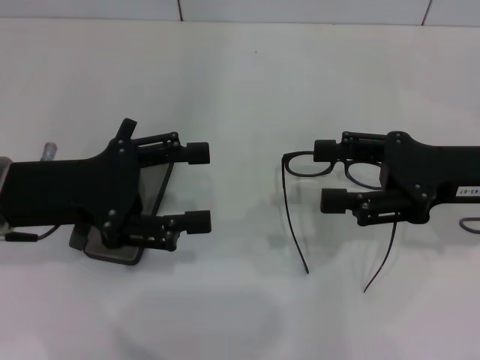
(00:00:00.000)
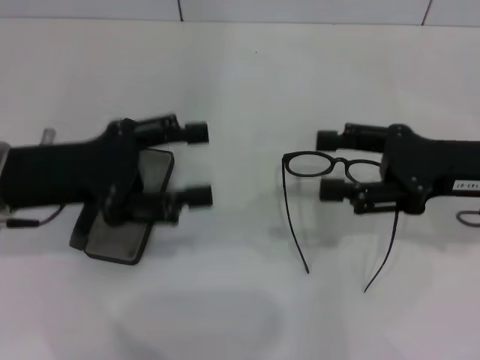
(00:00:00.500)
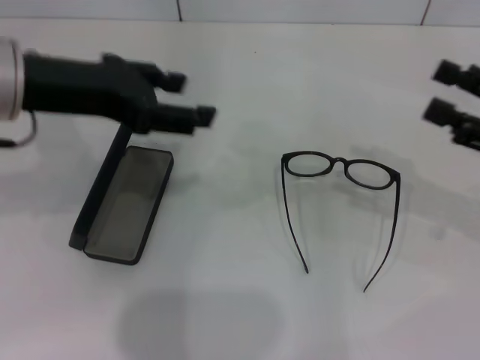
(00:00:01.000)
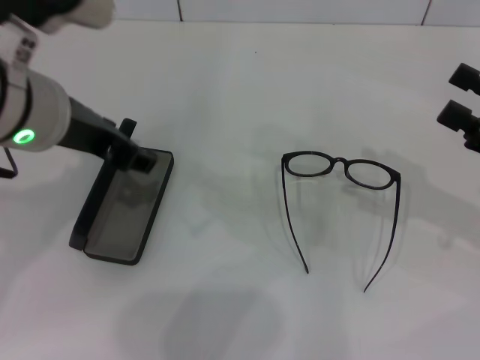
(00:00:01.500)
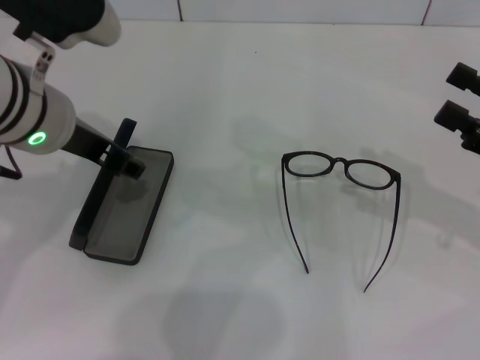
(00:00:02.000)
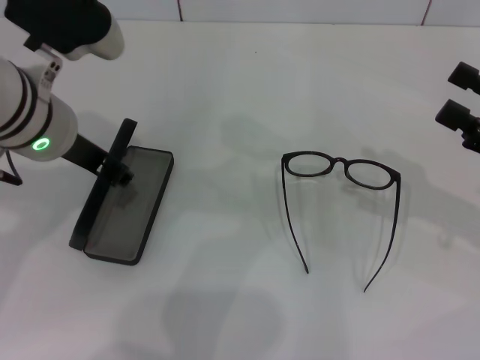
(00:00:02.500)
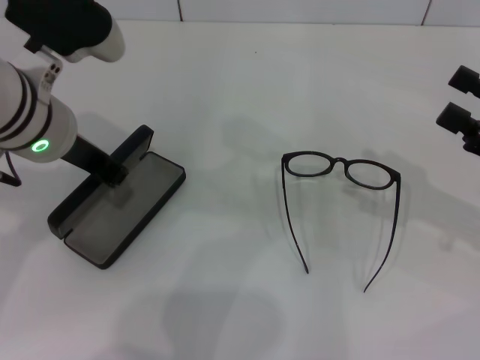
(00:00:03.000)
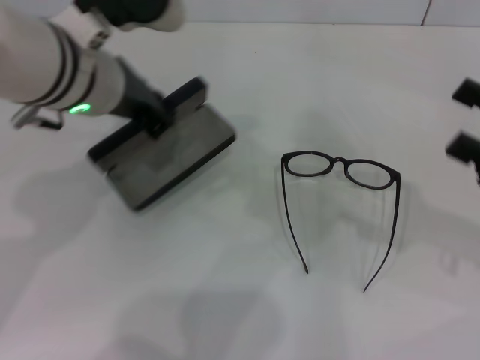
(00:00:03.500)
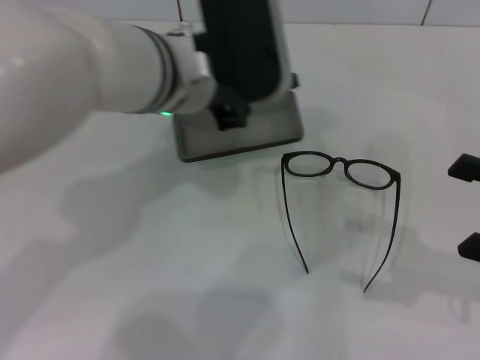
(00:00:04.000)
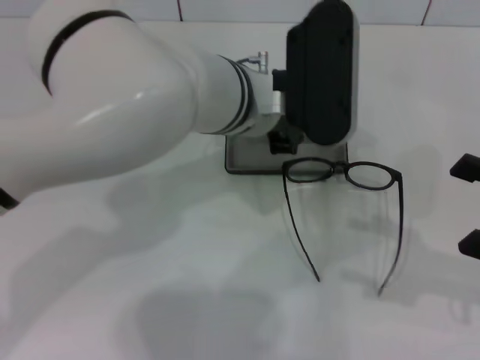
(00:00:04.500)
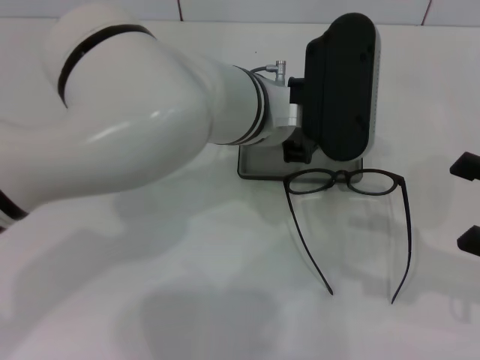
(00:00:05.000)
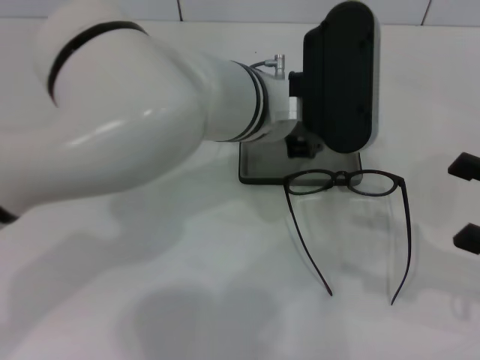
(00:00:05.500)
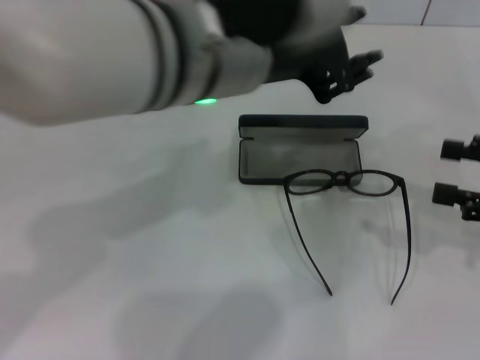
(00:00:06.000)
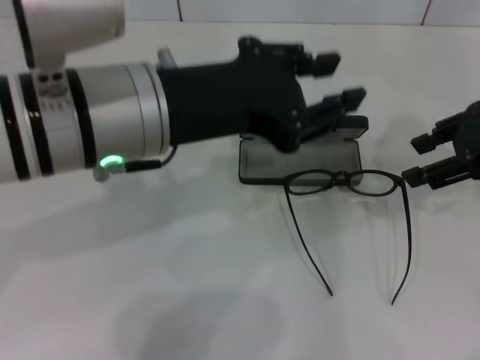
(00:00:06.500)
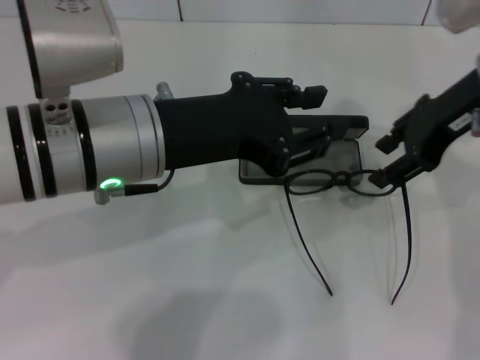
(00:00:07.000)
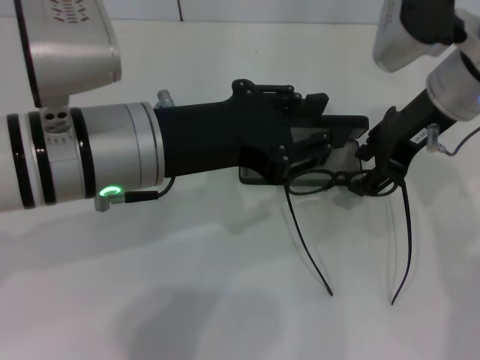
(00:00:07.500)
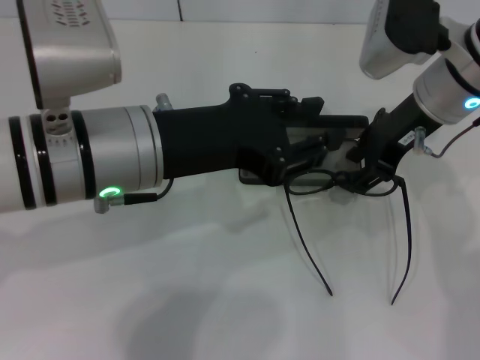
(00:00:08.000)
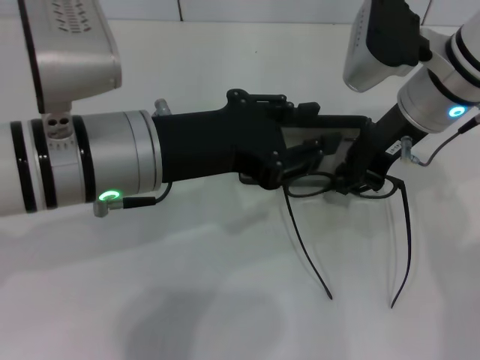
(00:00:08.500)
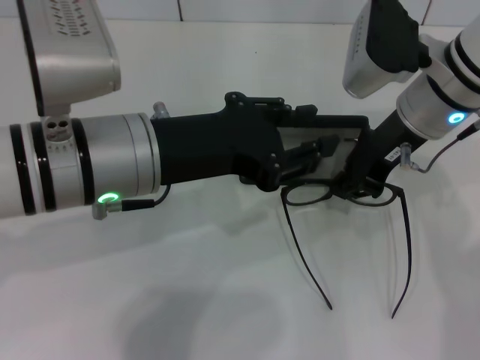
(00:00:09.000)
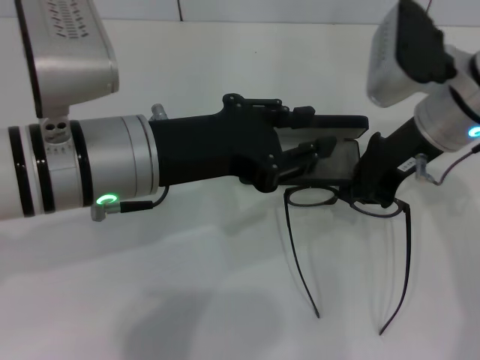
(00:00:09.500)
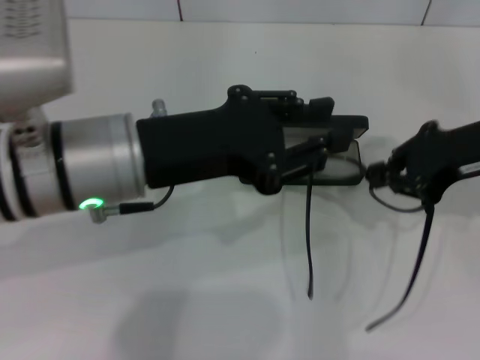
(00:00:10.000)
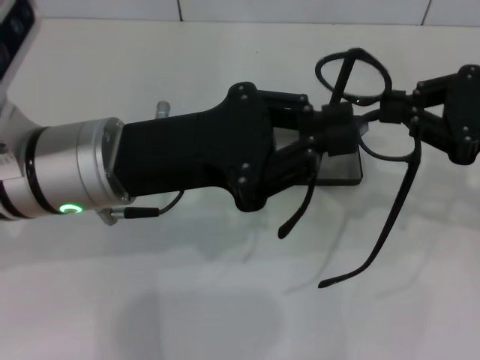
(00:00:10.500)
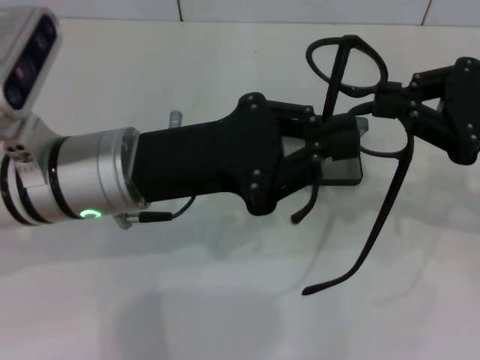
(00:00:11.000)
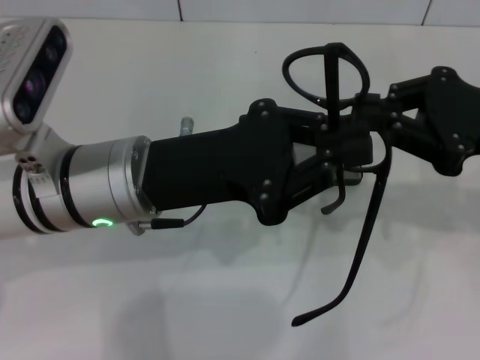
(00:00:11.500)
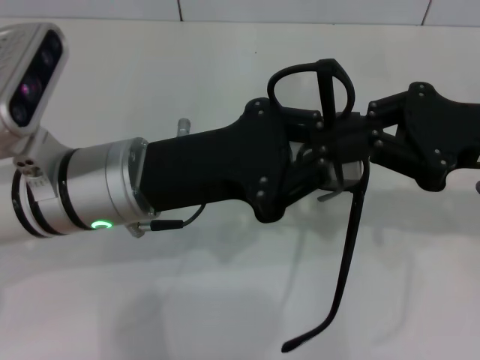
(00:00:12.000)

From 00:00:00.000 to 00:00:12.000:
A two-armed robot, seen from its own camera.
Step, from 00:00:00.000 to 00:00:02.500: Grab the glasses case with your left hand.
Step, from 00:00:03.000 to 00:00:05.000: Place the glasses case in the center of the table with your left hand.
Step, from 00:00:06.000 to 00:00:09.000: Grab the eyeglass frame with your right hand.
From 00:00:00.000 to 00:00:02.000: The right gripper heads to the right, covering about 10 cm, while the left gripper moves to the right and upward, approximately 10 cm.
From 00:00:02.000 to 00:00:04.000: The left gripper is displaced to the right by about 10 cm, and closes up.
From 00:00:04.000 to 00:00:06.000: The right gripper ends up roughly 5 cm from where it was, while the left gripper is displaced upward and backward by some 10 cm.
From 00:00:06.000 to 00:00:08.000: The right gripper is displaced to the left and forward by some 20 cm. Meanwhile the left gripper moves to the left and downward, roughly 10 cm.
From 00:00:08.000 to 00:00:10.000: The right gripper moves to the right and backward, roughly 10 cm, and closes its fingers.

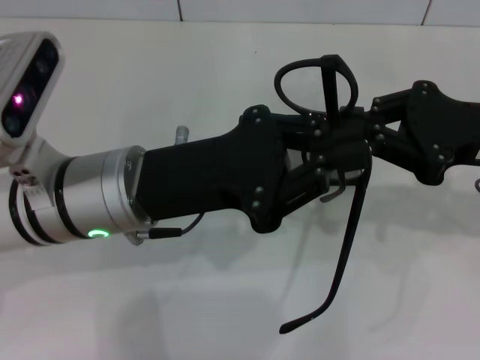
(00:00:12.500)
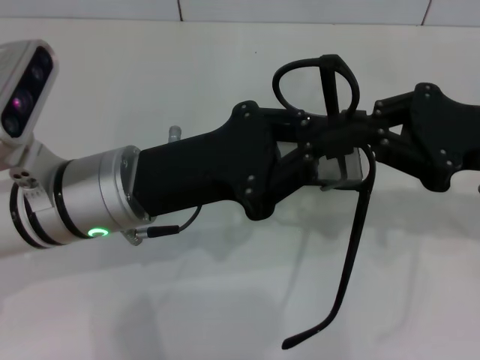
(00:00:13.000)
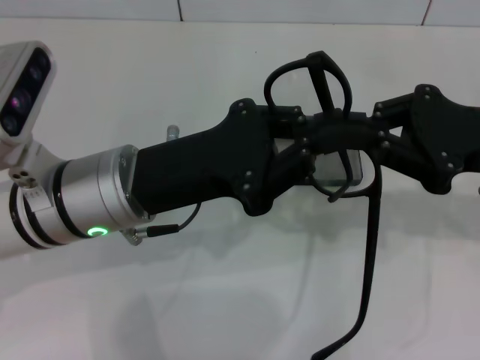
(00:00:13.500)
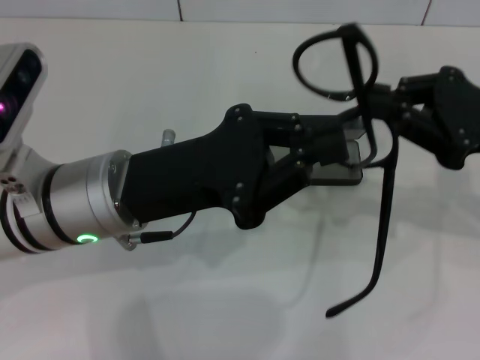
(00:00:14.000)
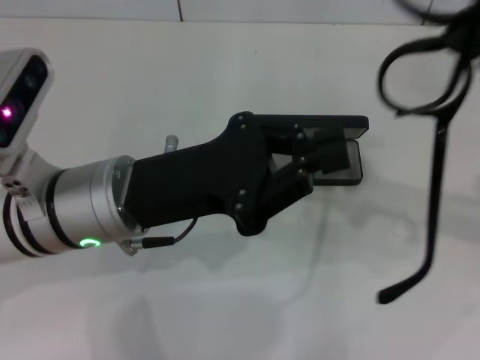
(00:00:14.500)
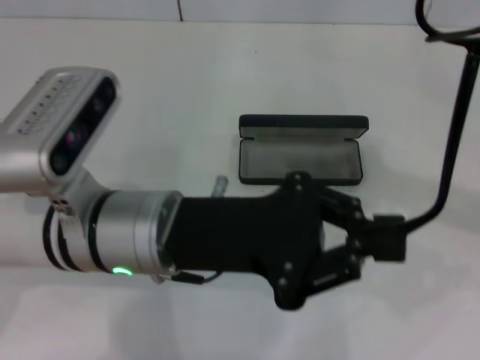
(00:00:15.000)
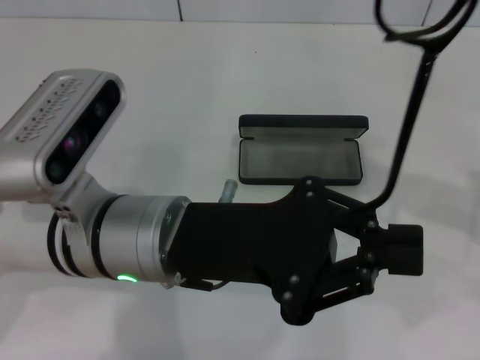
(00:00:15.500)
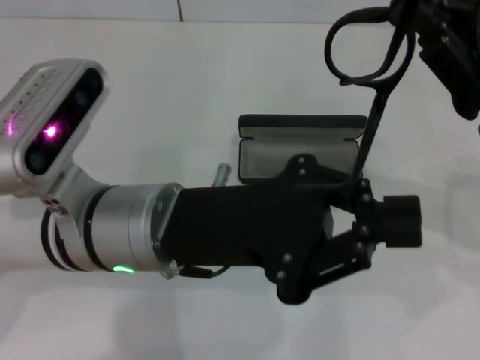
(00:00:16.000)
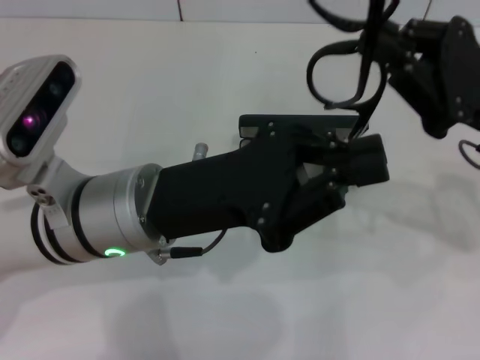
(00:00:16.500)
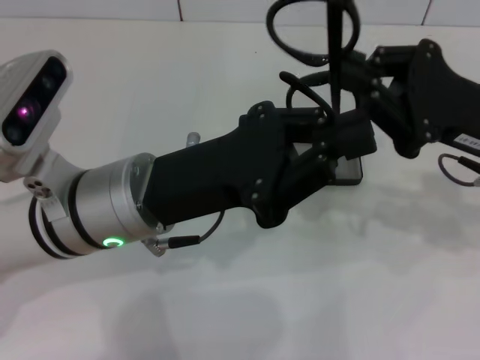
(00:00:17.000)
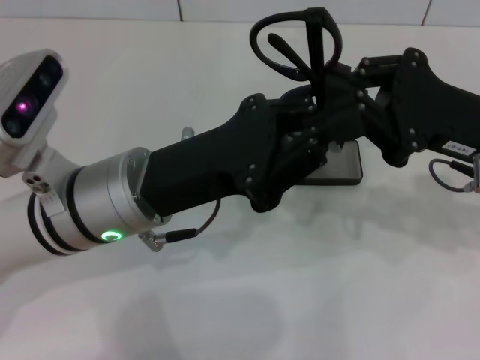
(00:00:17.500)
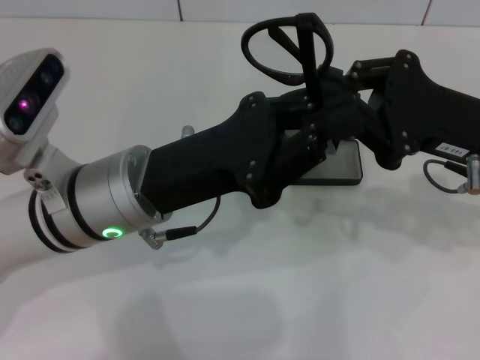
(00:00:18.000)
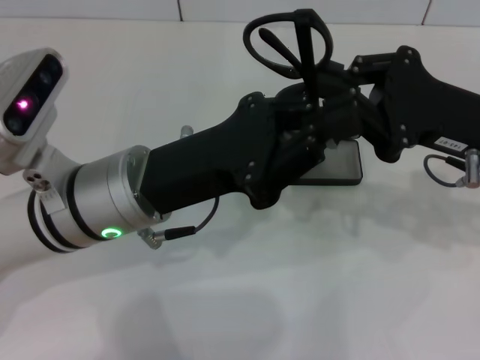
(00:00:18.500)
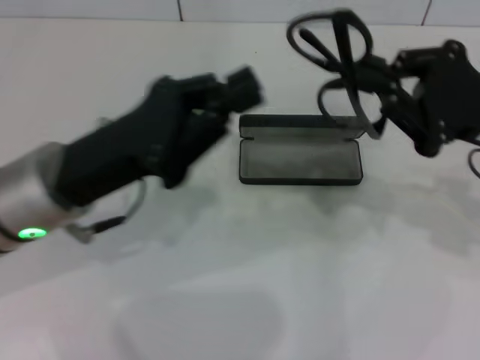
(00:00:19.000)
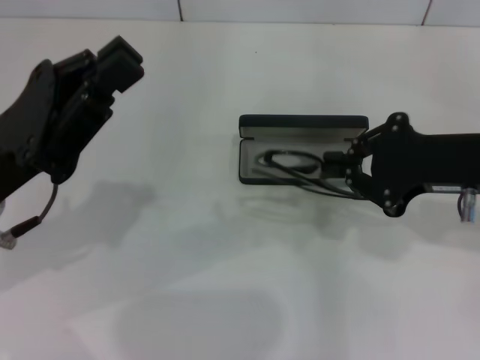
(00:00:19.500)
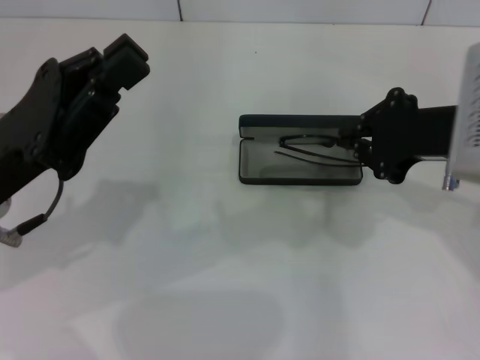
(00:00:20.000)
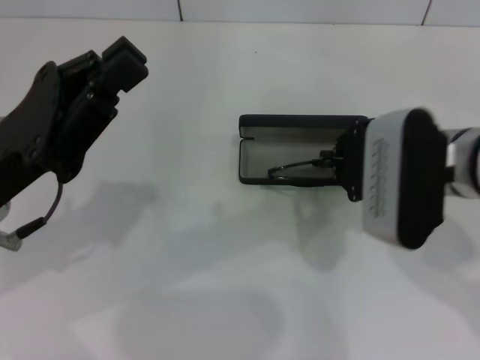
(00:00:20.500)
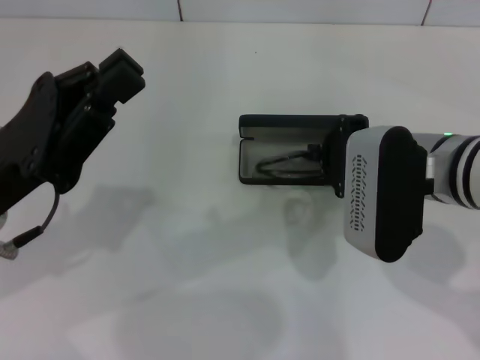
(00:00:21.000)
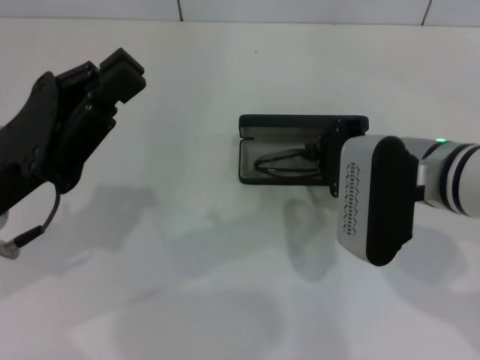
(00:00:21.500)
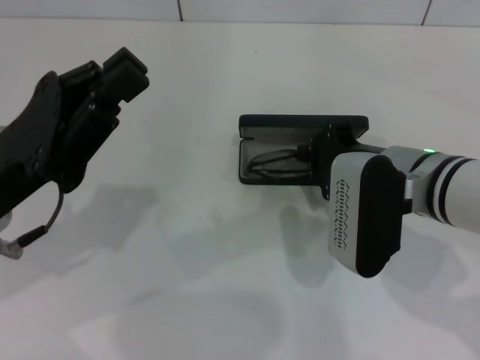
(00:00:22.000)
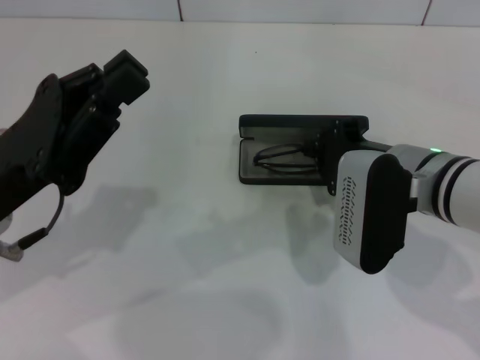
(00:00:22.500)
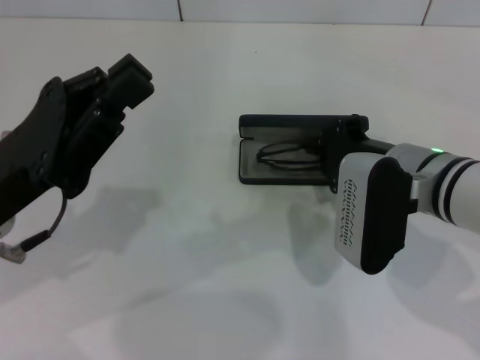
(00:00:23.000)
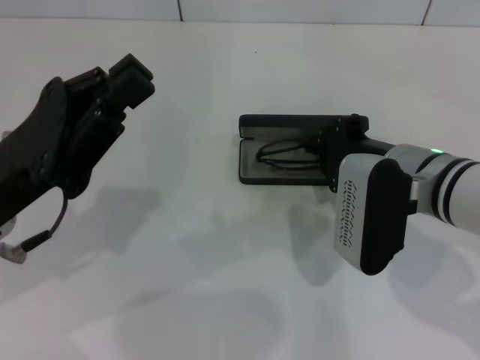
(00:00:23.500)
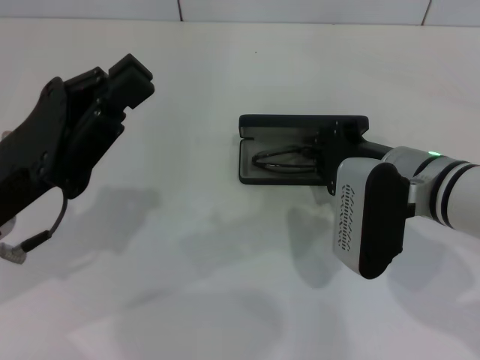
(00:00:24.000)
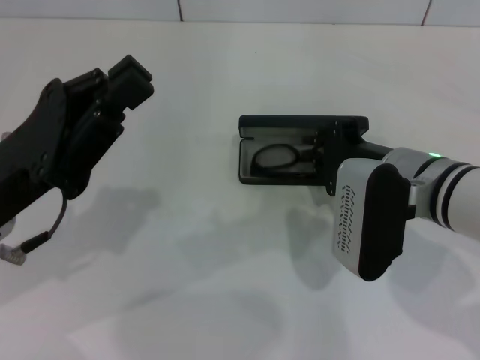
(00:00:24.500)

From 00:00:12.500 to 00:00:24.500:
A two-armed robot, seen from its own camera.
Step, from 00:00:12.500 to 00:00:17.000: Fold the frame with your left hand.
From 00:00:14.500 to 00:00:16.500: The right gripper shifts by some 5 cm.
From 00:00:18.500 to 00:00:20.500: The right gripper shifts approximately 5 cm to the left, while the left gripper heads to the left, covering about 10 cm.
From 00:00:20.500 to 00:00:22.500: The grippers stay close to where they were, moving slightly.
From 00:00:22.500 to 00:00:24.500: The two grippers keep their place.

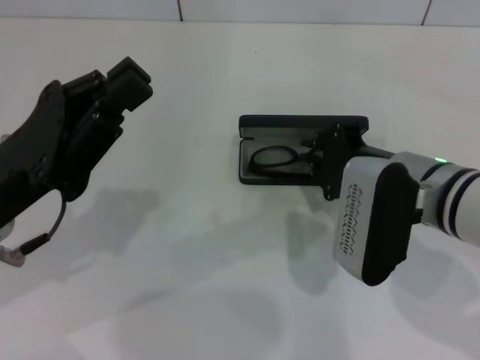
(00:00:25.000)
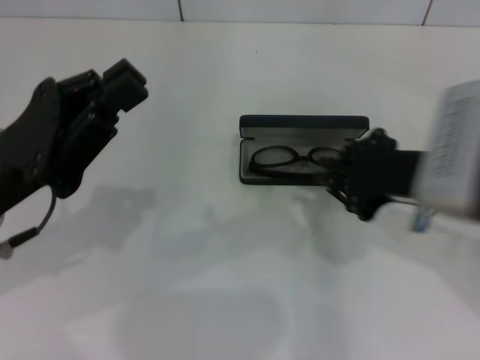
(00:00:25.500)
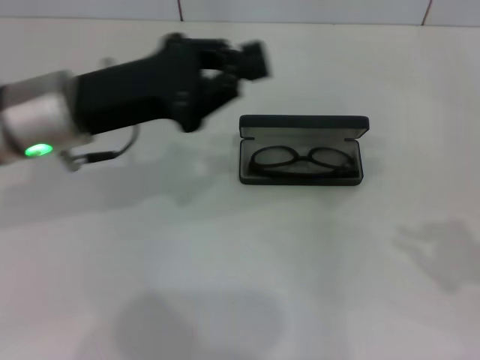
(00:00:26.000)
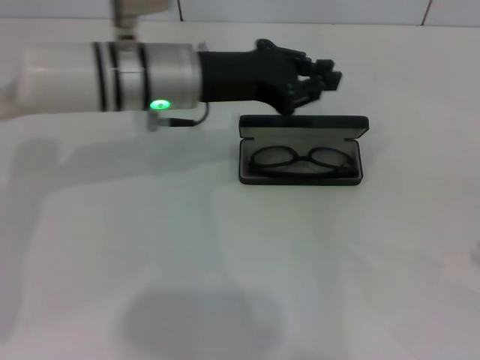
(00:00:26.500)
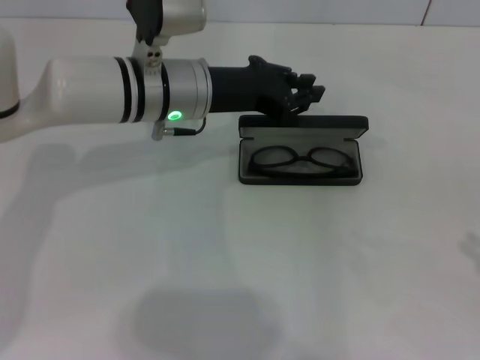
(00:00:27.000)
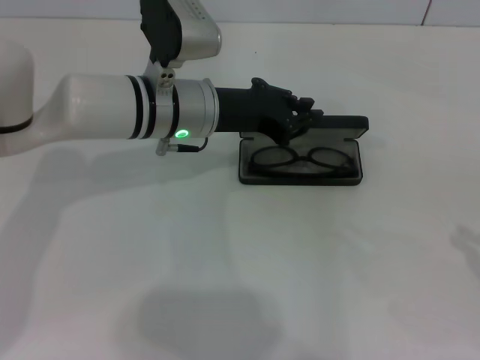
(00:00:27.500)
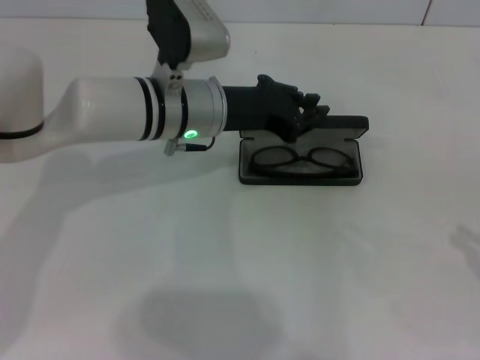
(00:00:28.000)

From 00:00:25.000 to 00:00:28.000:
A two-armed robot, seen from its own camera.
From 00:00:25.000 to 00:00:26.500: The right gripper is displaced to the right and backward by about 30 cm. The left gripper goes roughly 20 cm forward and to the right.
From 00:00:26.500 to 00:00:28.000: The grippers make only small movements.
